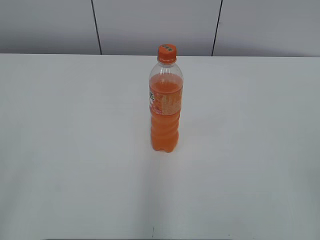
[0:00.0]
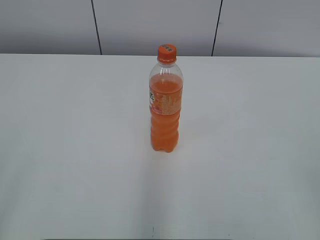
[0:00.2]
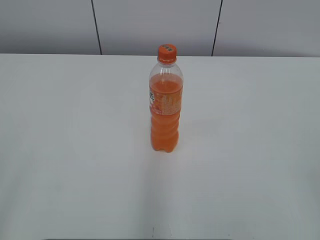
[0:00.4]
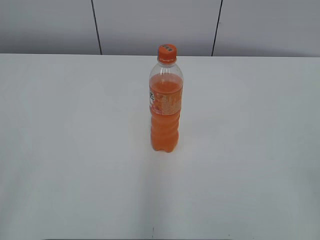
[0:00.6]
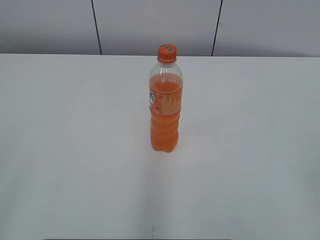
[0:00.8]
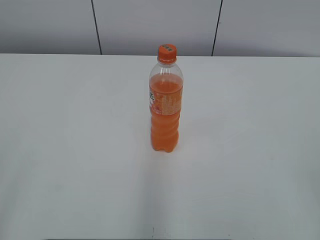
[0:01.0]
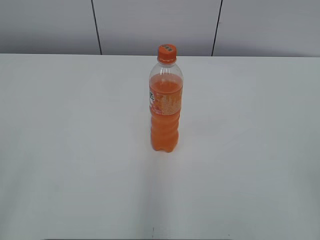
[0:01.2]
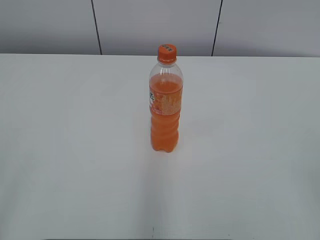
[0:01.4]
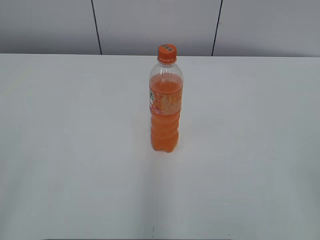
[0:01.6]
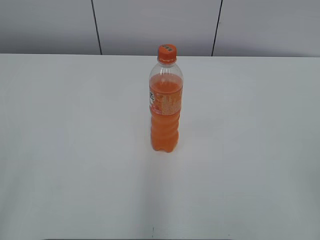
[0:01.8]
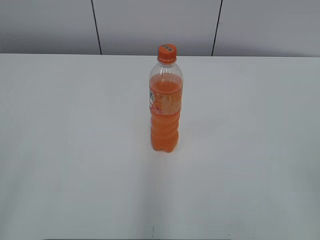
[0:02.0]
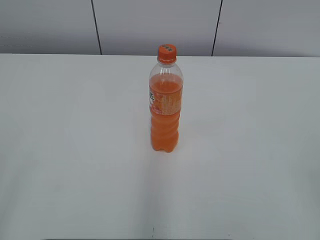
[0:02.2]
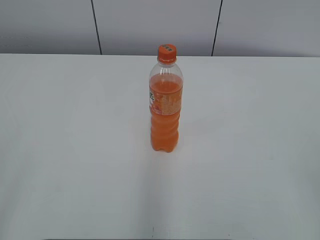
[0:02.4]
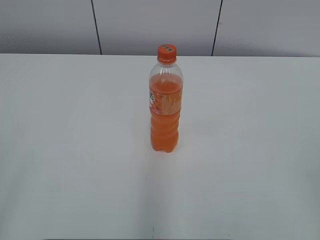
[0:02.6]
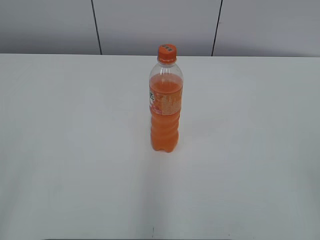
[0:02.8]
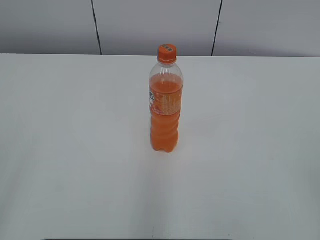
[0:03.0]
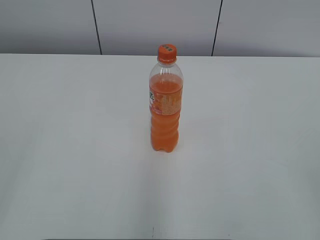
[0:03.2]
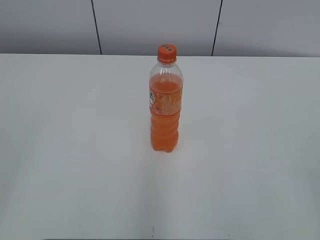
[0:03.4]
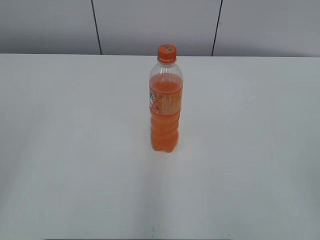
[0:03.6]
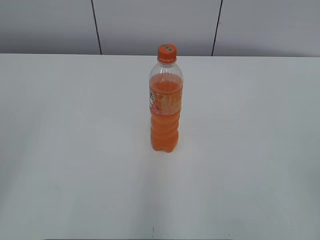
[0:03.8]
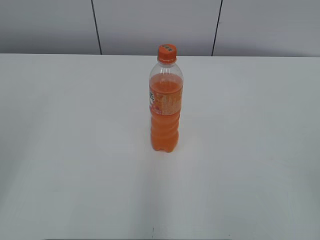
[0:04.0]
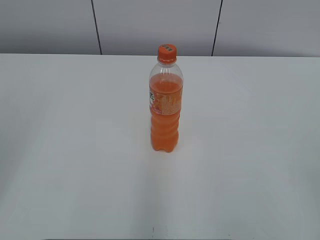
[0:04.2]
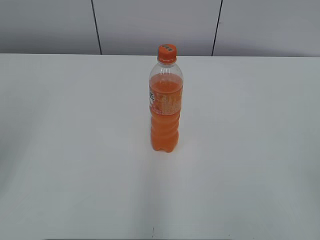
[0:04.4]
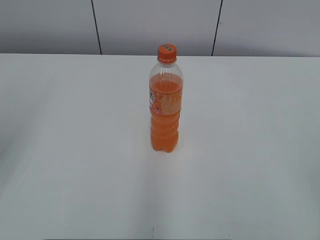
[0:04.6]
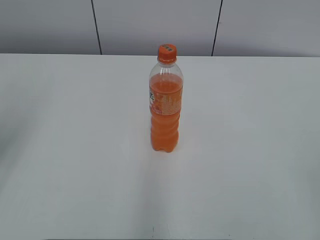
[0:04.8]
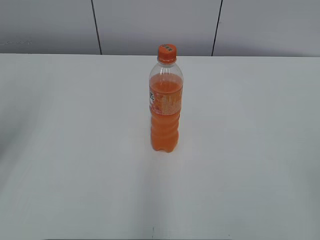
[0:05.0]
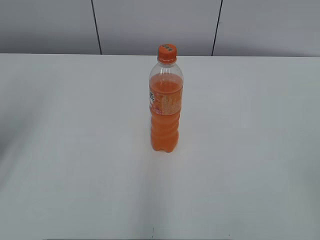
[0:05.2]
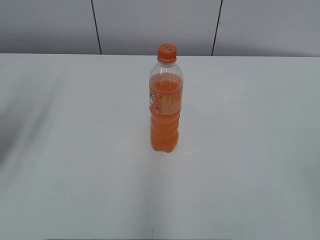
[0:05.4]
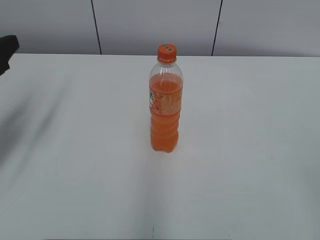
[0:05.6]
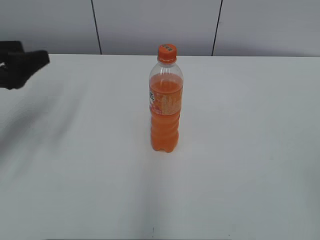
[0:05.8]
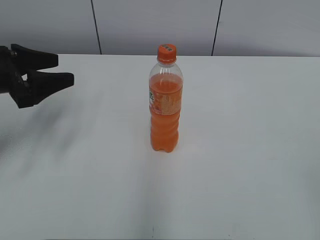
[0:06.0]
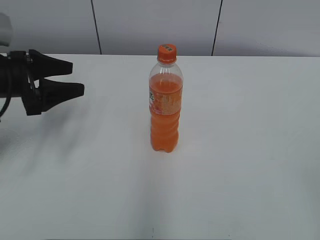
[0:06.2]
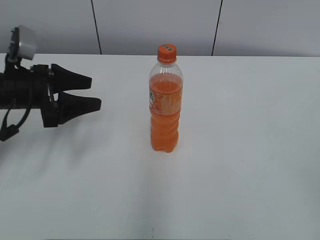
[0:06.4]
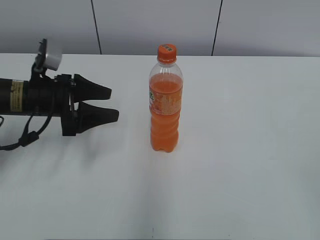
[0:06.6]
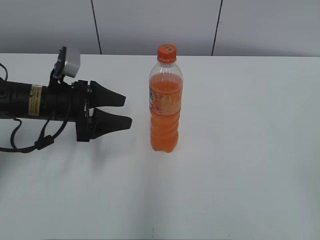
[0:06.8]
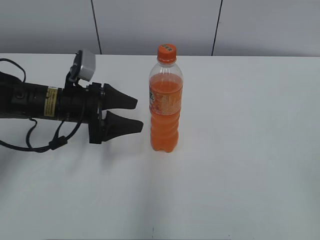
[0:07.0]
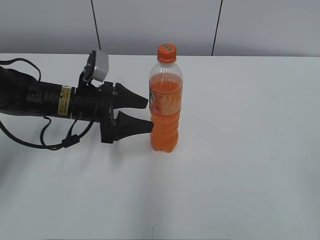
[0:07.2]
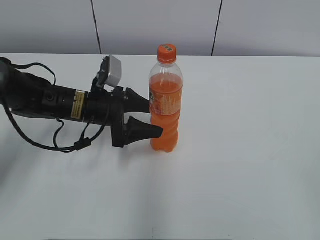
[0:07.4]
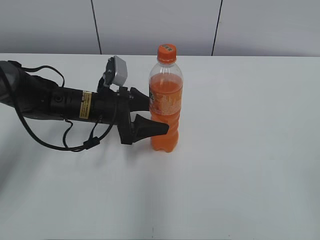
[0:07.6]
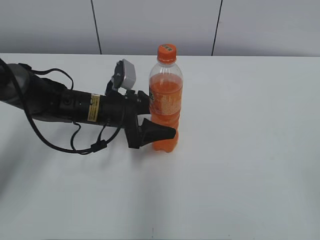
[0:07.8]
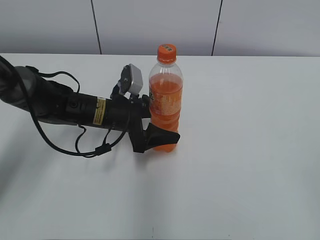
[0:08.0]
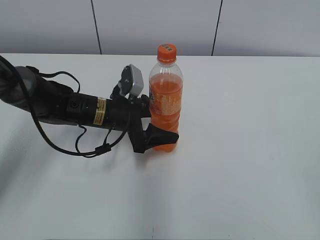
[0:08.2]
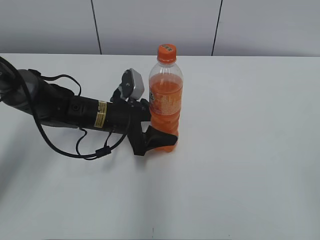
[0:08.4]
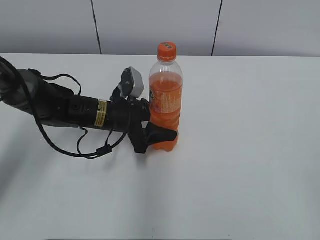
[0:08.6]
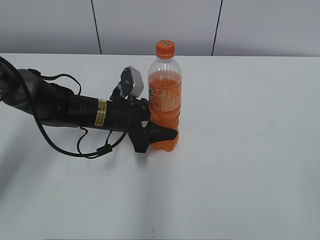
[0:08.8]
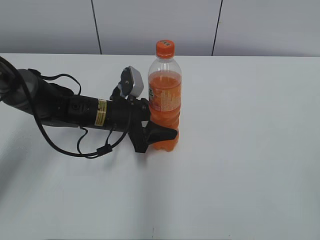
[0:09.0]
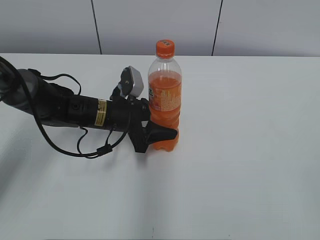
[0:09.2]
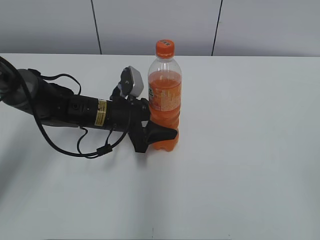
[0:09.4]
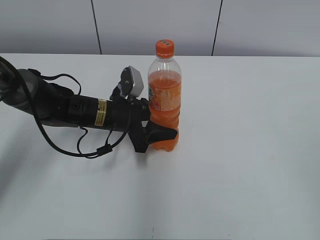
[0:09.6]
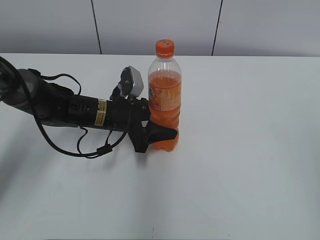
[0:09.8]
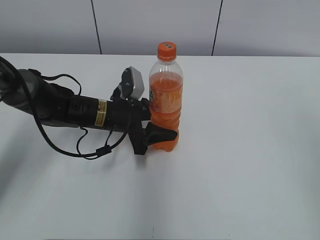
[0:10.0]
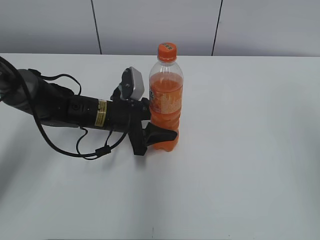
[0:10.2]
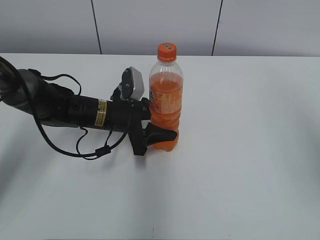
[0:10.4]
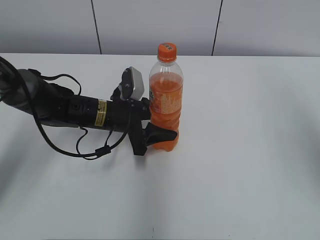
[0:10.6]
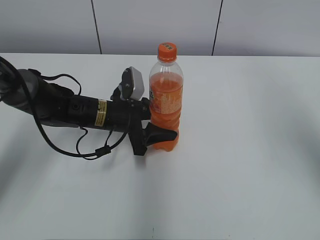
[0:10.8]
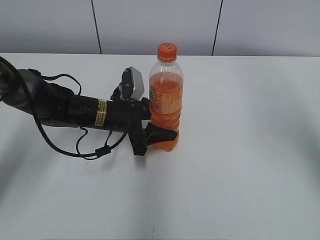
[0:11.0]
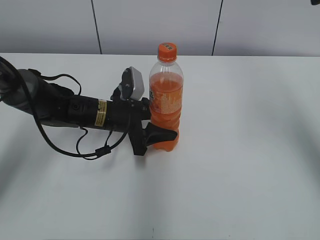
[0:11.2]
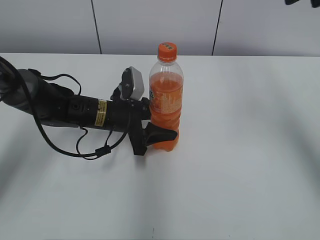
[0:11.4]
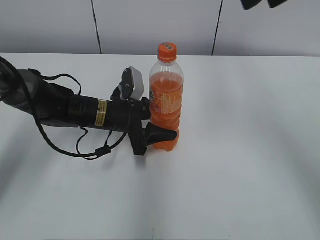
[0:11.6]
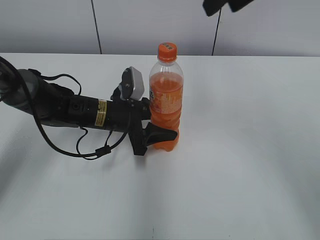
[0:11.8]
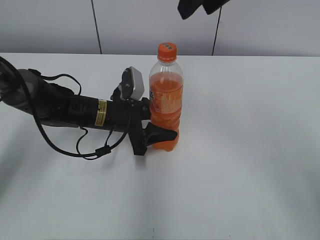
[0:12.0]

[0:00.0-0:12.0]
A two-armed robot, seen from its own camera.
Step, 0:00.0 to 0:09.2: Grab the Mirinda with the left hand.
0:04.4 to 0:06.0: The left gripper heads forward and downward, covering approximately 20 cm.
0:06.0 to 0:07.6: The left gripper shifts about 20 cm to the right and downward.
0:07.6 to 0:09.0: The left gripper closes up.
0:09.0 to 0:10.4: The right gripper travels forward and upward by some 20 cm.
0:10.4 to 0:12.0: The right gripper is displaced forward and to the left by approximately 30 cm, and closes.

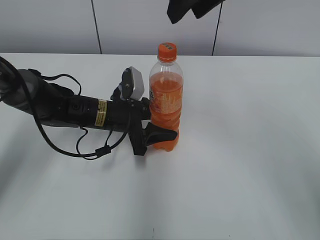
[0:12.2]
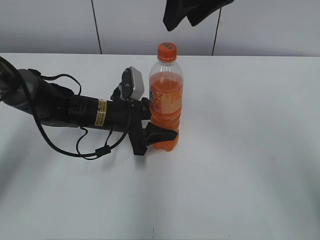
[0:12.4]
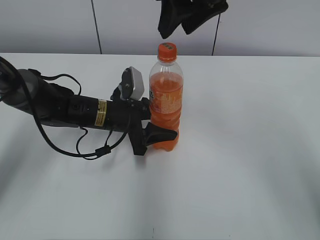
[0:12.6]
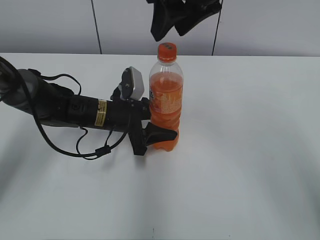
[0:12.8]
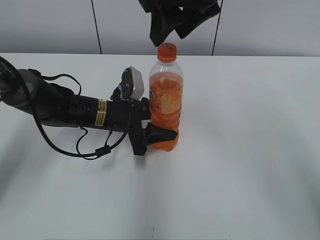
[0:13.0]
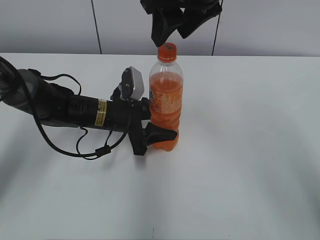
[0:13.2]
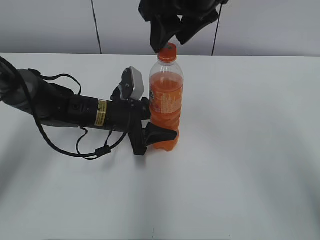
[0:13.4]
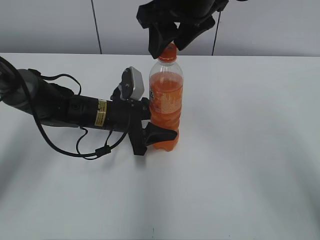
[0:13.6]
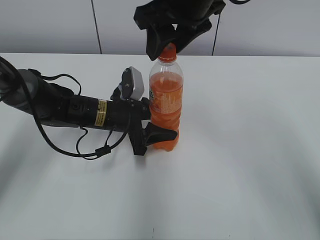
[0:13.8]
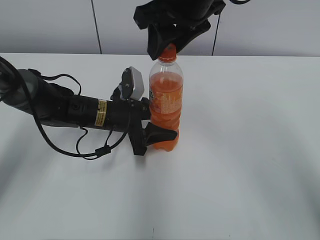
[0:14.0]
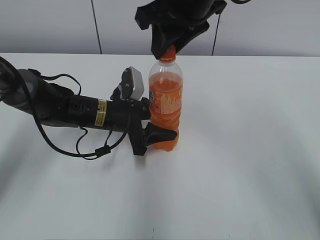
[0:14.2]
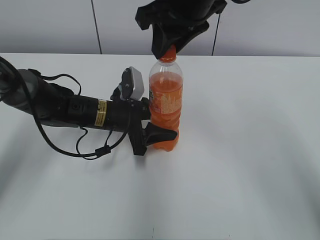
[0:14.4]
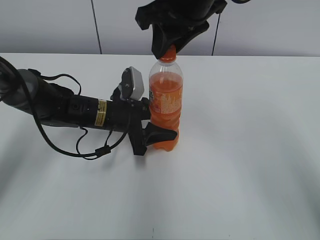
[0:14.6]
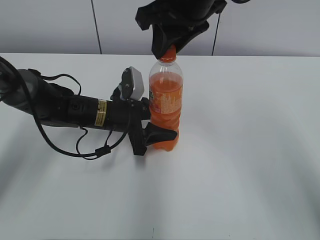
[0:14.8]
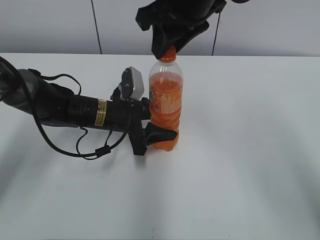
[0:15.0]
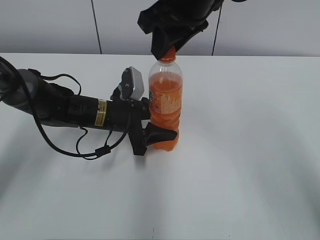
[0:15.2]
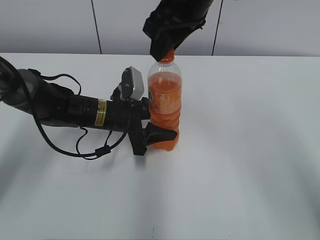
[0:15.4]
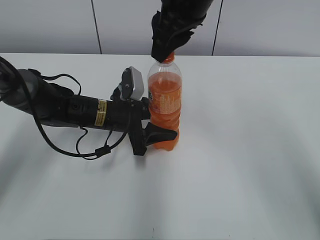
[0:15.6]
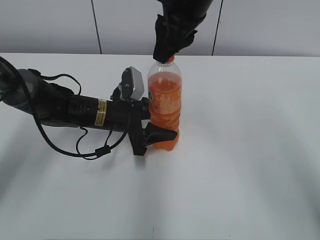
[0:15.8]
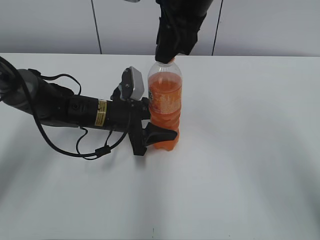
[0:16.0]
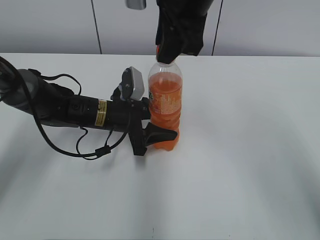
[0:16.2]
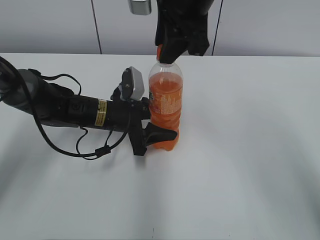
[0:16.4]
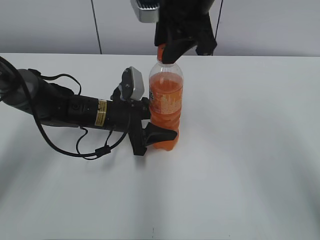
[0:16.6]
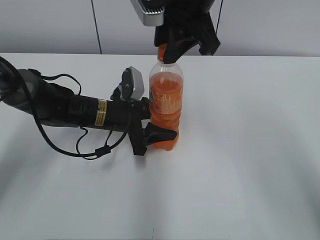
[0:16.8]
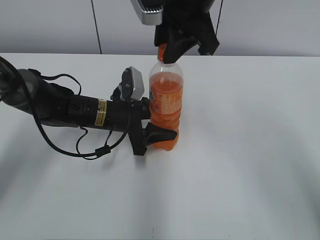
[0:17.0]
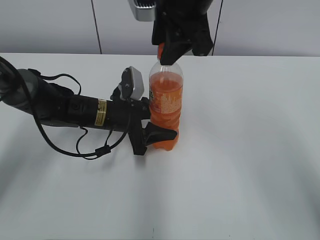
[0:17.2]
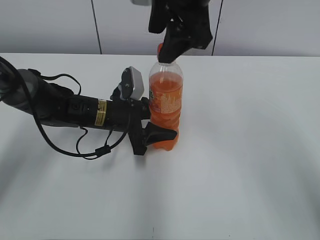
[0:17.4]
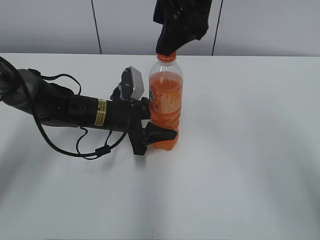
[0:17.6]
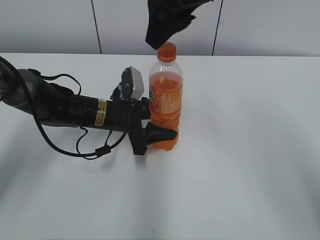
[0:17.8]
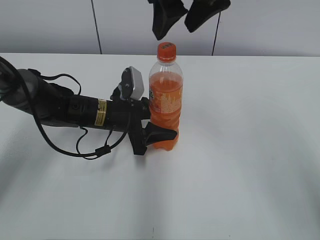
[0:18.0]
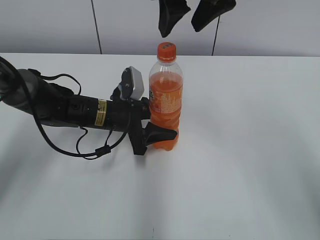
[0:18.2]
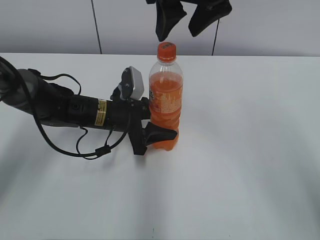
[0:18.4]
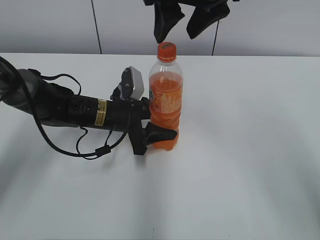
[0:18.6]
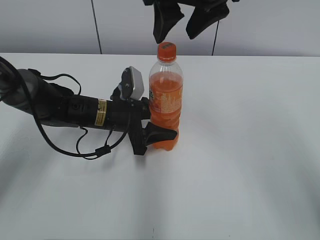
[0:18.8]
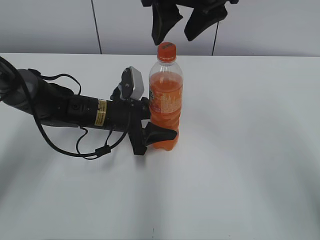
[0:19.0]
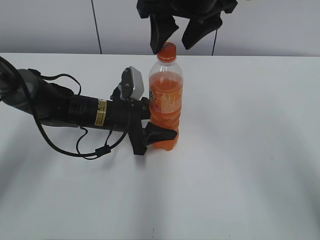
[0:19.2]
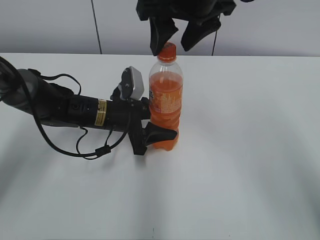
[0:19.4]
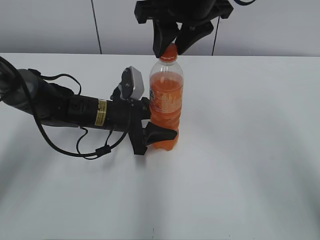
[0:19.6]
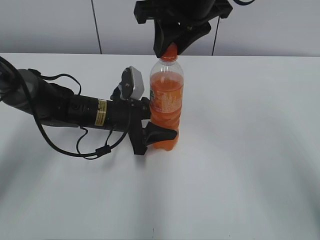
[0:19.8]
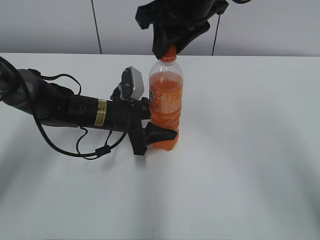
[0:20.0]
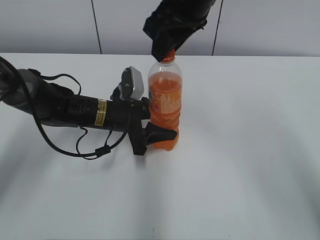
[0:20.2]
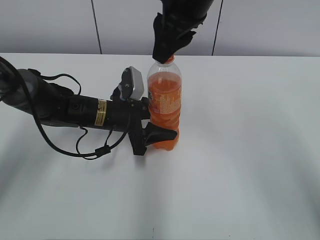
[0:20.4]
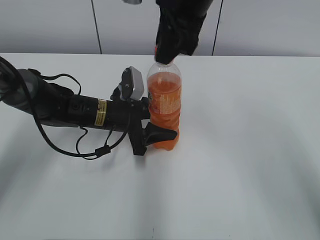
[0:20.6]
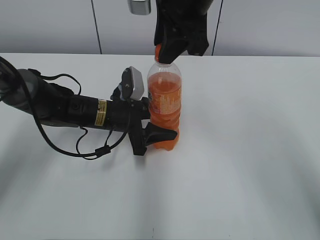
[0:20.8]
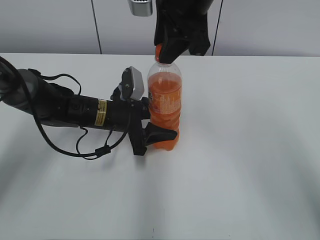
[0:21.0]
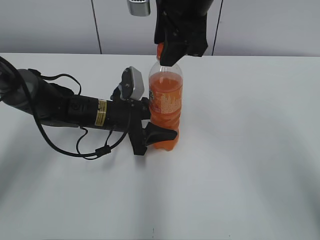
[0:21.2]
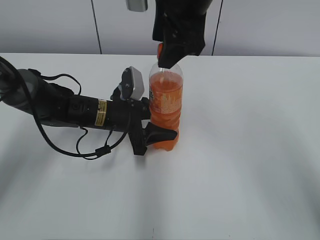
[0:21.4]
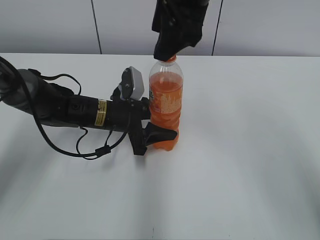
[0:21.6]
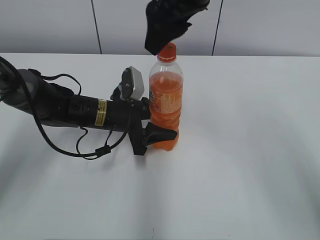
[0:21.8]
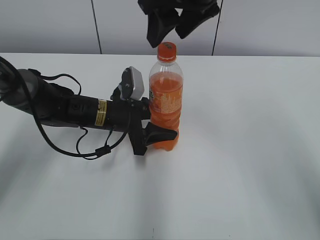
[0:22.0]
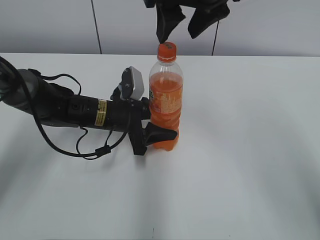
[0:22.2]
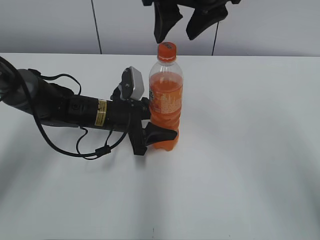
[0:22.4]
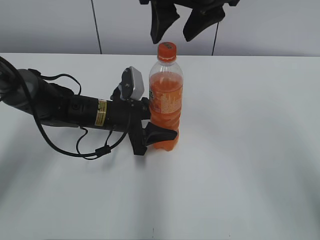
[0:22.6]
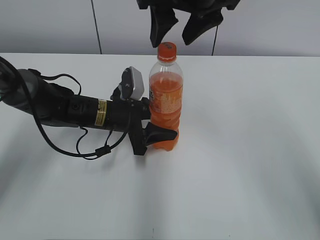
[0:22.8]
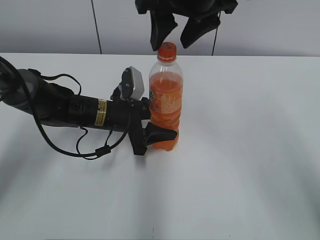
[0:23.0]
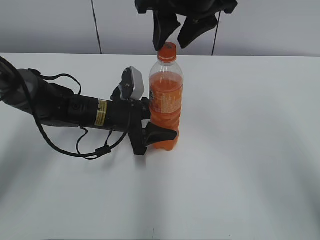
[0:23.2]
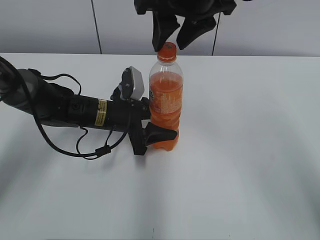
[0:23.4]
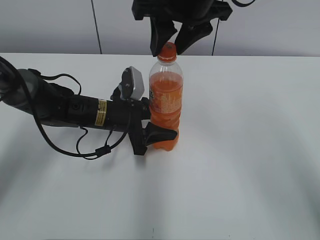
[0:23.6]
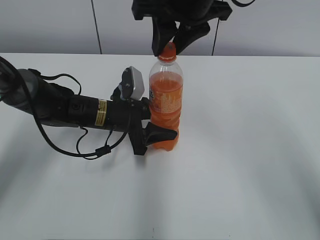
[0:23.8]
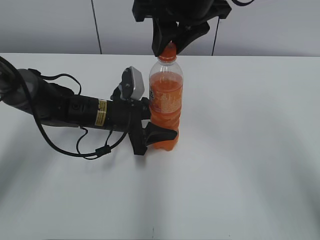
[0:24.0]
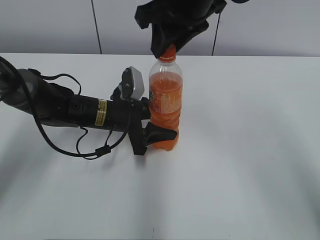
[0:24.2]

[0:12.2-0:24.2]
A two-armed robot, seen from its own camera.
0:12.2 to 0:13.8: The right gripper shifts about 5 cm downward.
0:13.8 to 0:15.2: The right gripper closes.
0:16.6 to 0:18.2: The right gripper opens.
0:18.2 to 0:19.8: The right gripper closes its fingers.
0:21.2 to 0:22.6: The right gripper opens its fingers.
0:22.6 to 0:24.2: The right gripper closes up.
